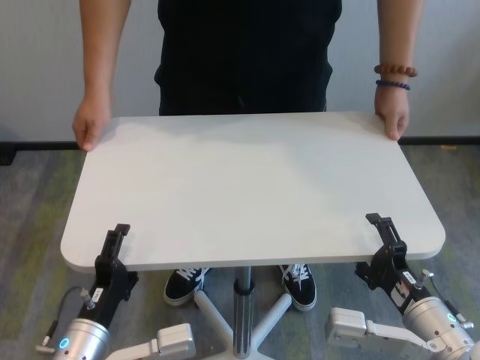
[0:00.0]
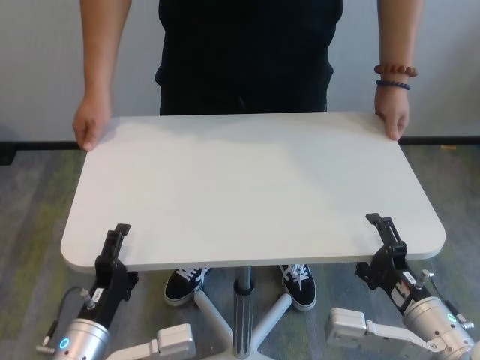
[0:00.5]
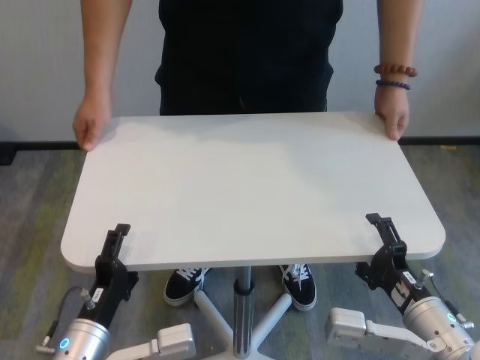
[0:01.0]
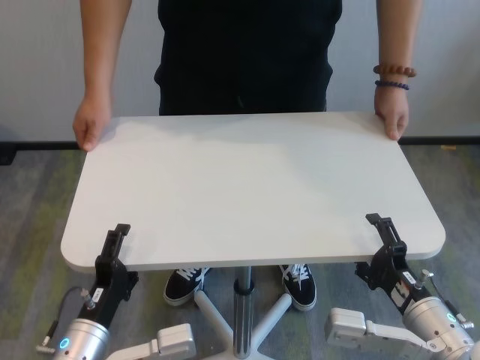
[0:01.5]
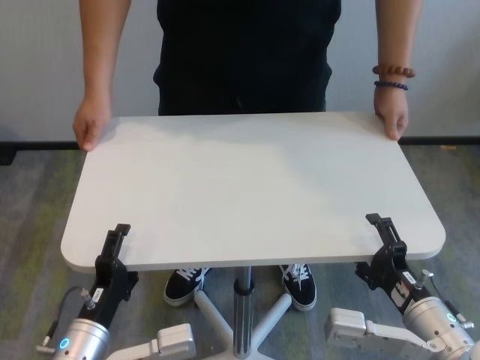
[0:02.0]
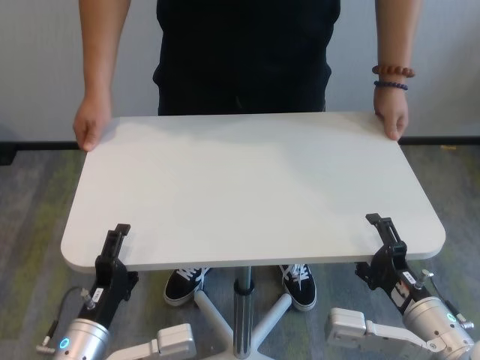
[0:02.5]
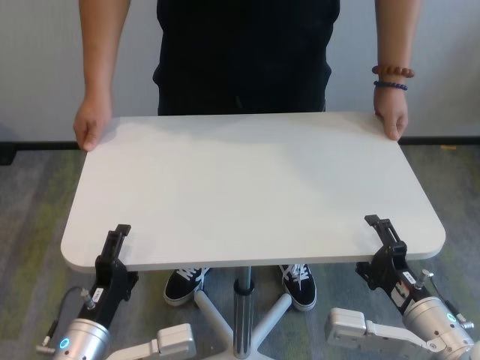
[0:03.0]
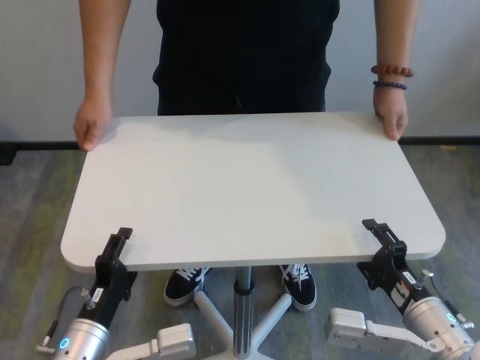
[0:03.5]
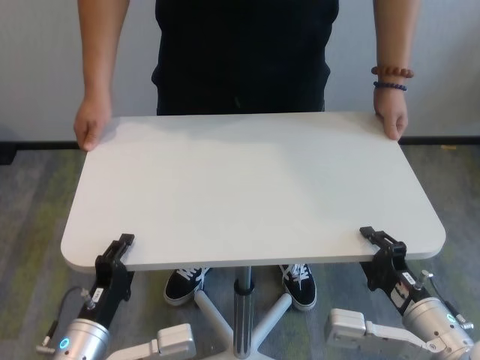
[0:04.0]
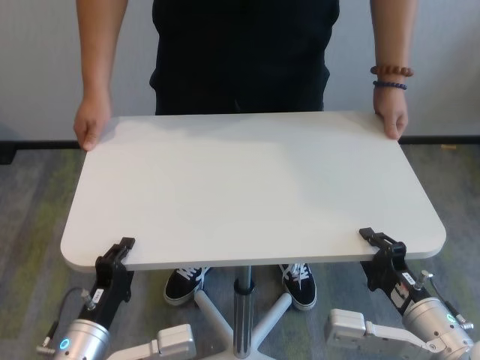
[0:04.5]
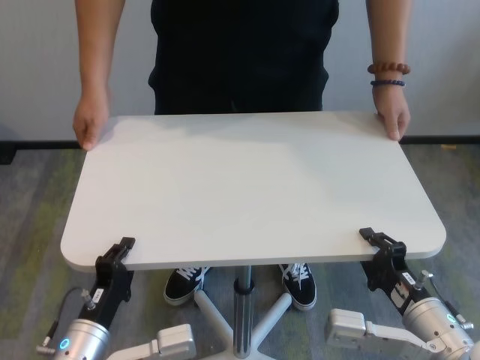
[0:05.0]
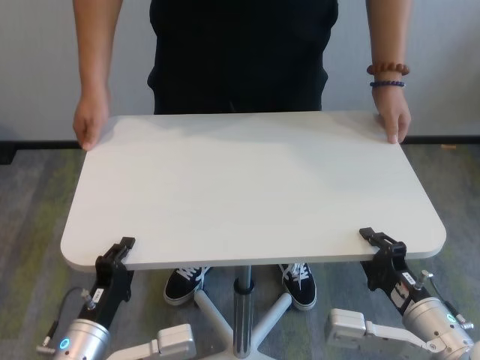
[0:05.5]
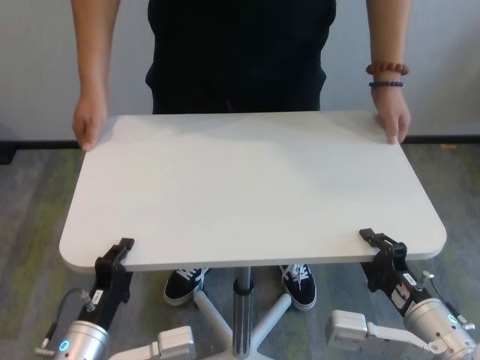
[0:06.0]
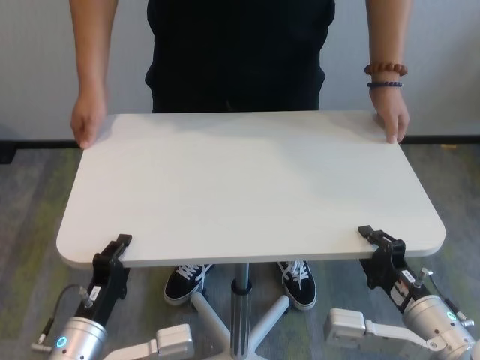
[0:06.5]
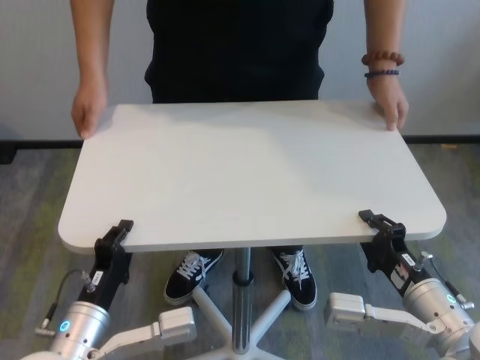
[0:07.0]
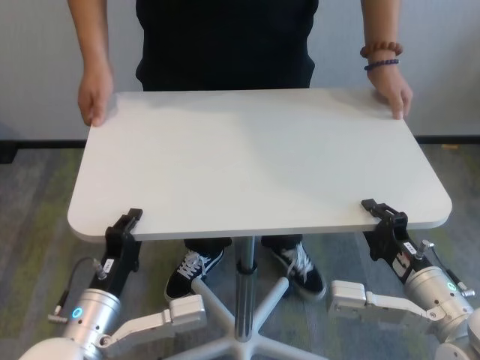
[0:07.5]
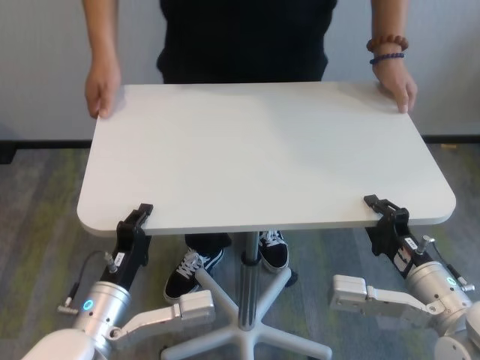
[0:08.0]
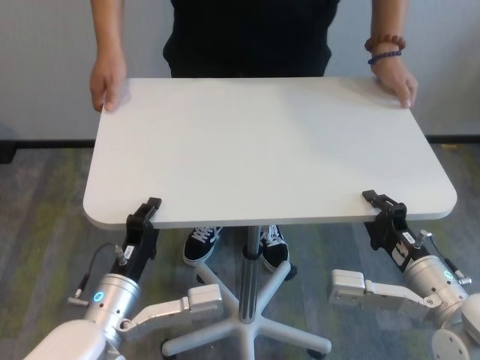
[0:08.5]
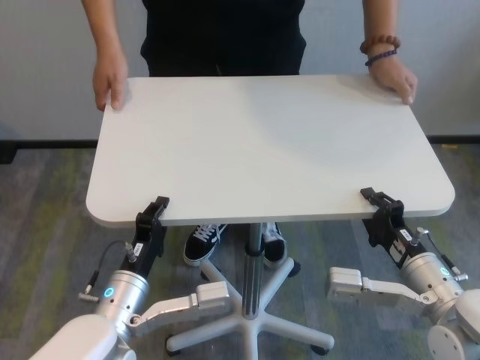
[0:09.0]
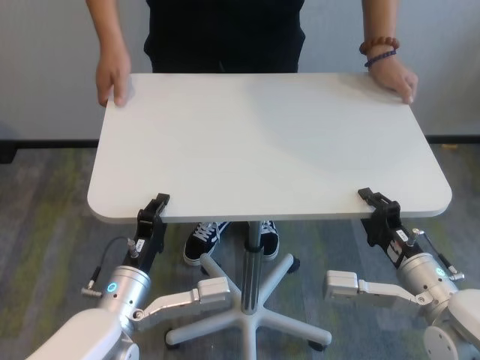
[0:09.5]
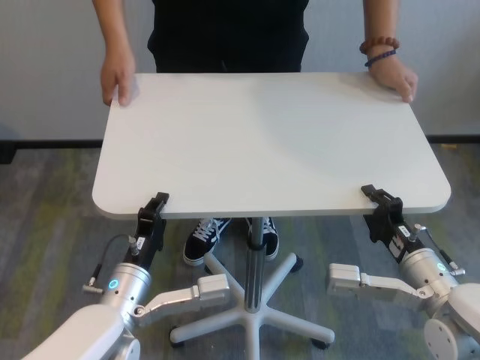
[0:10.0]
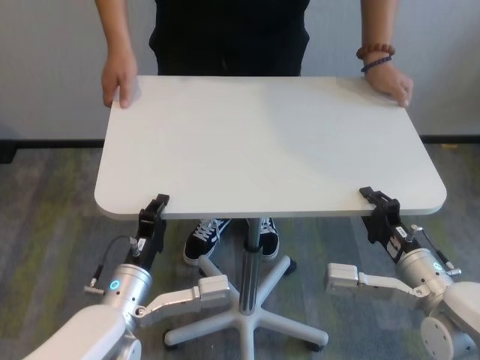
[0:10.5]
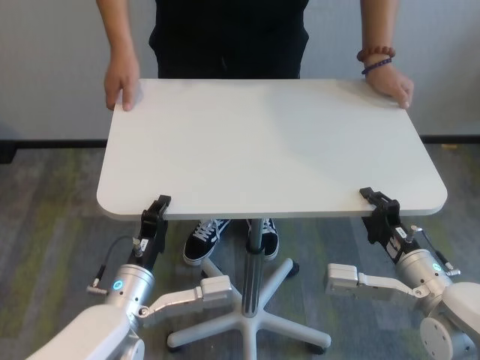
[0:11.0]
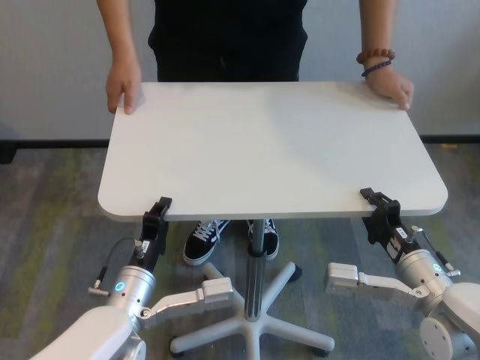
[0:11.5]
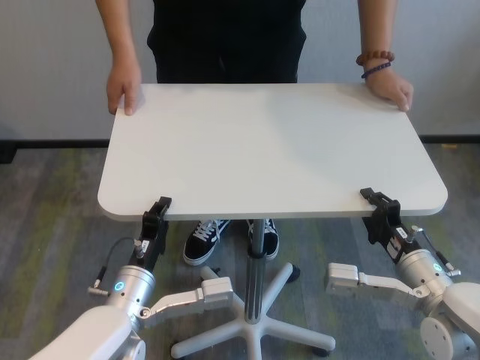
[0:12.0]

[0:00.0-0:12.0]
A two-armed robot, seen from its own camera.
Task of the whole recording: human machine collaborative table moving.
Step, 0:00.0 to 0:05.5: Grasp the table with both grippers.
